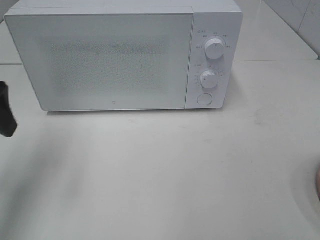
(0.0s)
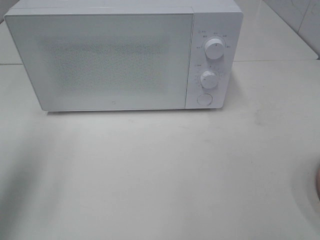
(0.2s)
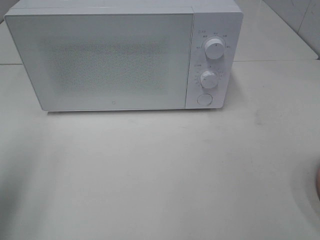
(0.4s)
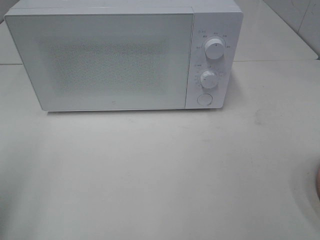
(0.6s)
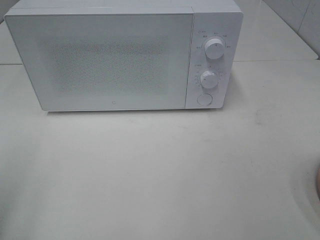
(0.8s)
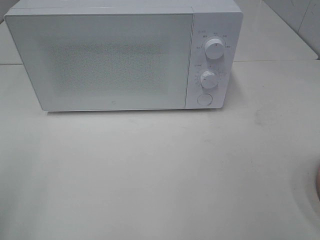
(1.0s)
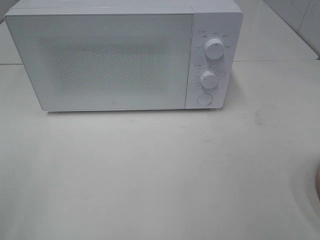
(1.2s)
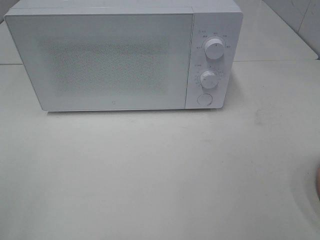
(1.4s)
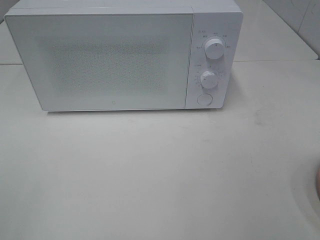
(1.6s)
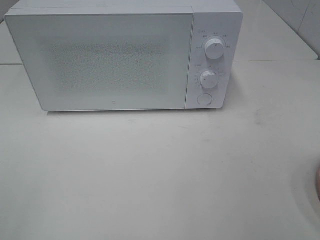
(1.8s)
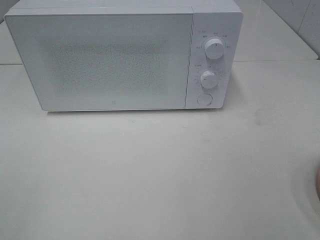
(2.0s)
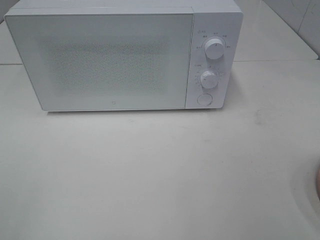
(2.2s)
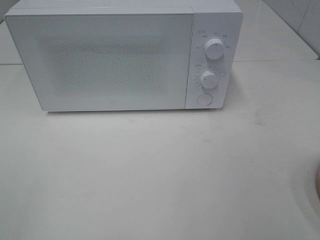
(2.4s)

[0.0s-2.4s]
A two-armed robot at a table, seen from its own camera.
Task of the whole recording: Heat the burger.
0.0s to 1.2s: The left gripper is displaced backward by some 20 cm.

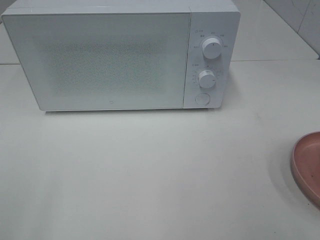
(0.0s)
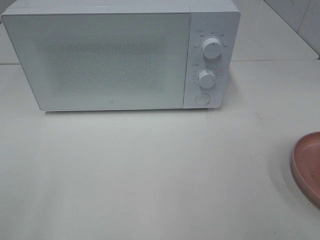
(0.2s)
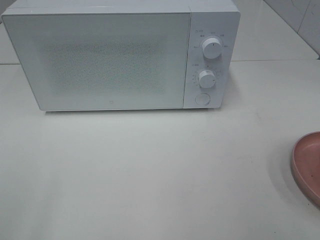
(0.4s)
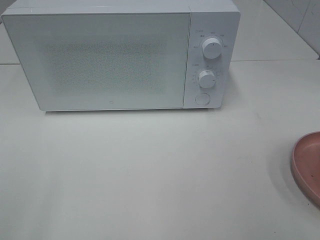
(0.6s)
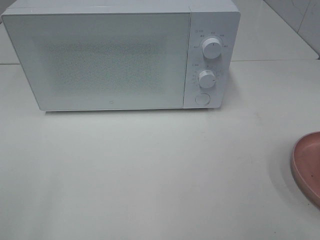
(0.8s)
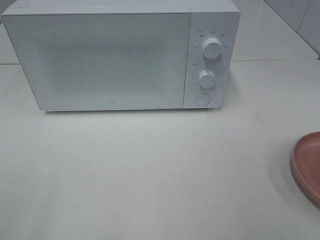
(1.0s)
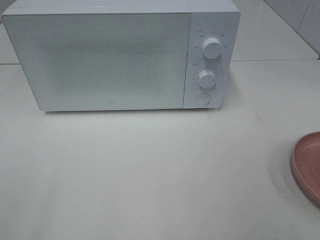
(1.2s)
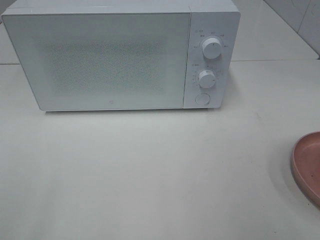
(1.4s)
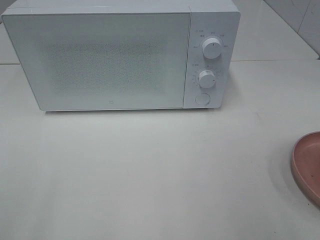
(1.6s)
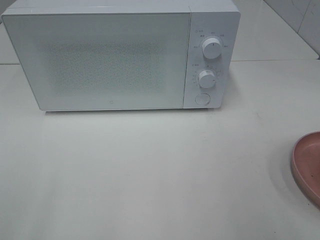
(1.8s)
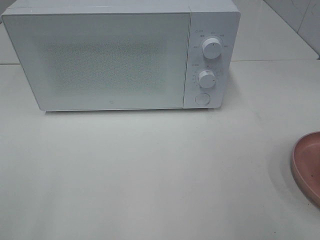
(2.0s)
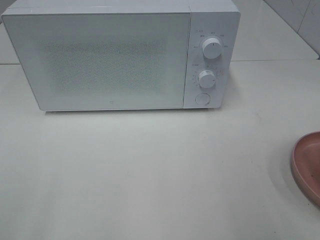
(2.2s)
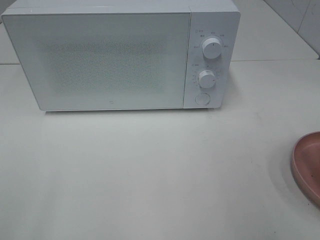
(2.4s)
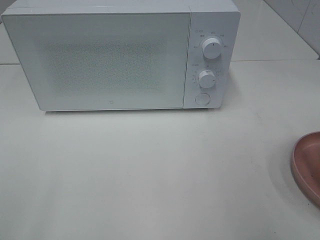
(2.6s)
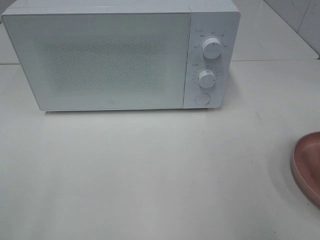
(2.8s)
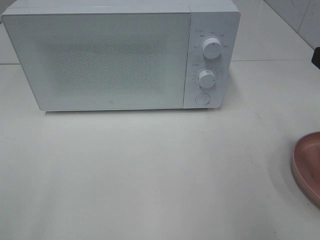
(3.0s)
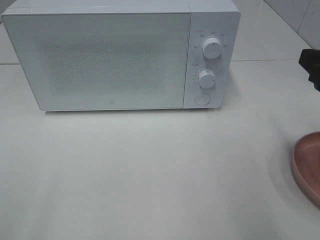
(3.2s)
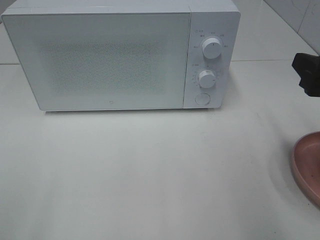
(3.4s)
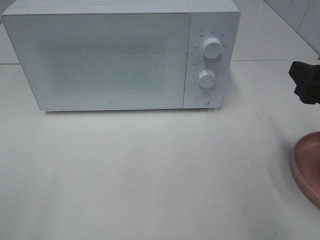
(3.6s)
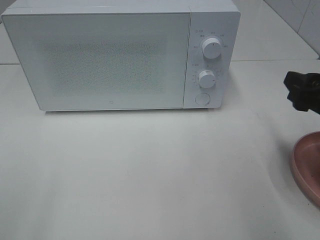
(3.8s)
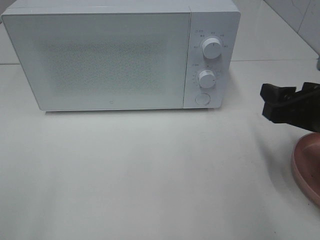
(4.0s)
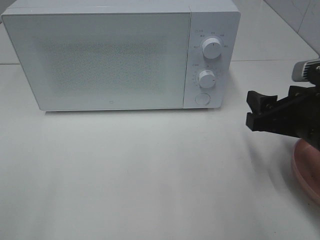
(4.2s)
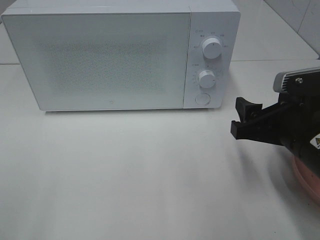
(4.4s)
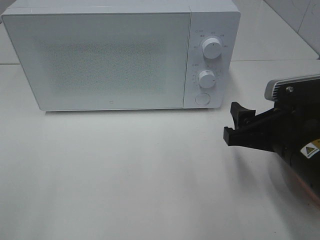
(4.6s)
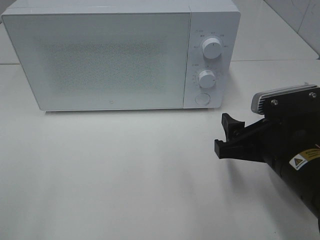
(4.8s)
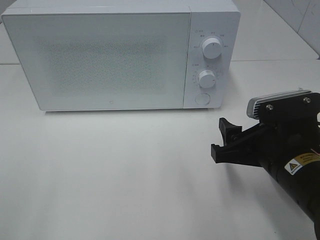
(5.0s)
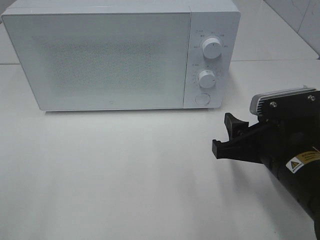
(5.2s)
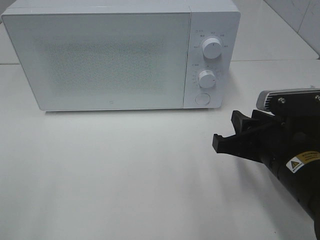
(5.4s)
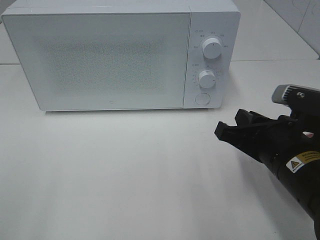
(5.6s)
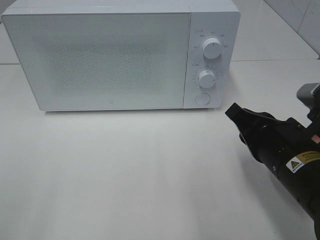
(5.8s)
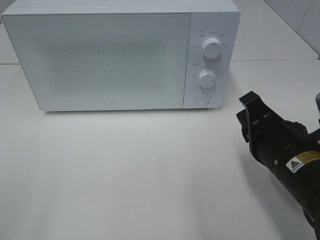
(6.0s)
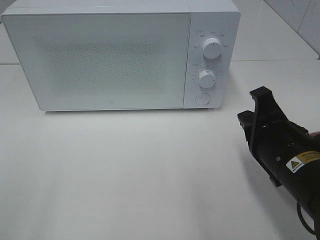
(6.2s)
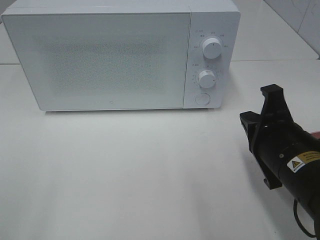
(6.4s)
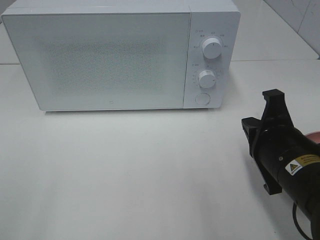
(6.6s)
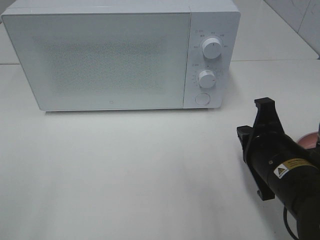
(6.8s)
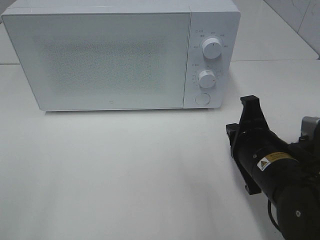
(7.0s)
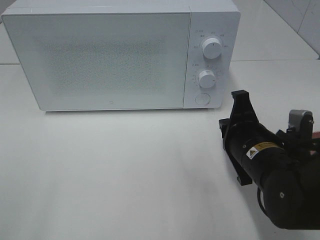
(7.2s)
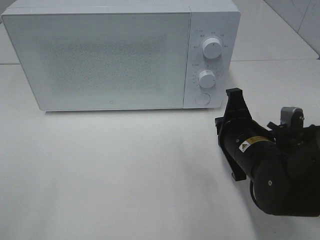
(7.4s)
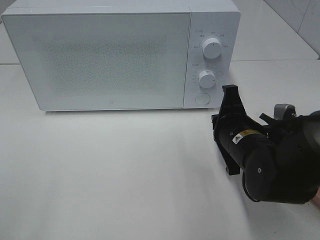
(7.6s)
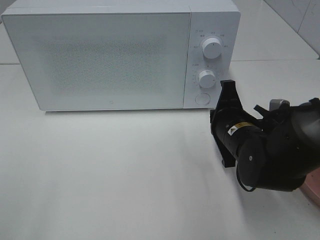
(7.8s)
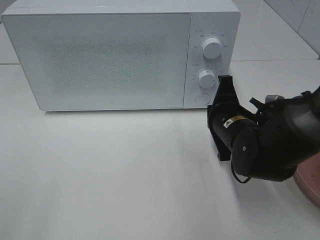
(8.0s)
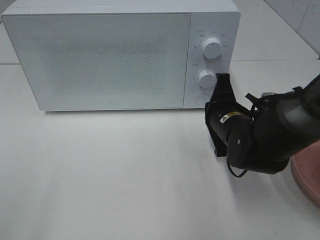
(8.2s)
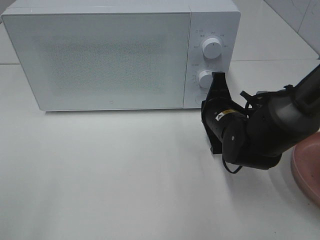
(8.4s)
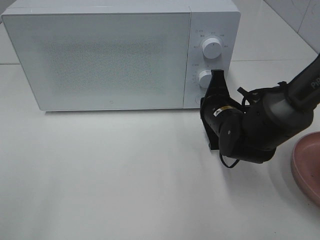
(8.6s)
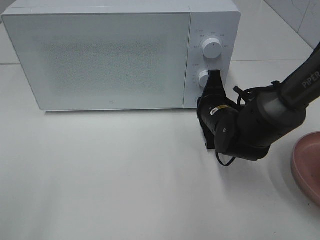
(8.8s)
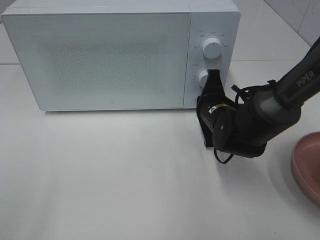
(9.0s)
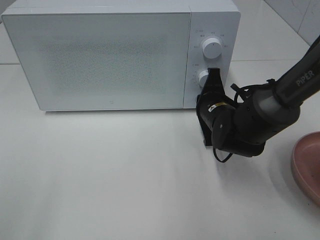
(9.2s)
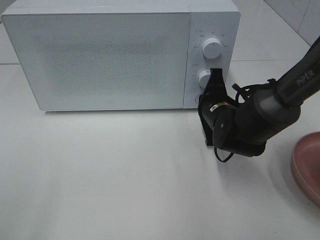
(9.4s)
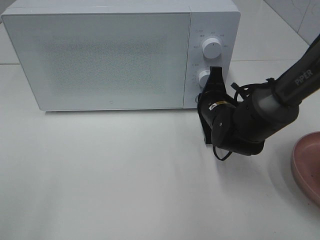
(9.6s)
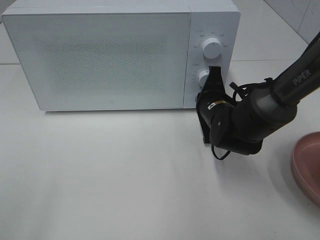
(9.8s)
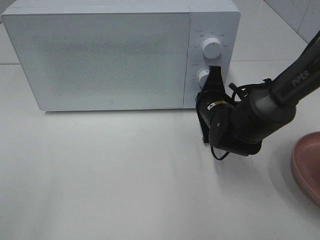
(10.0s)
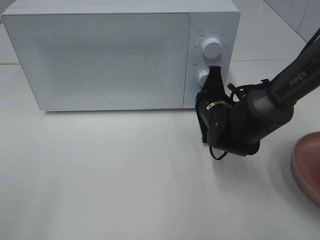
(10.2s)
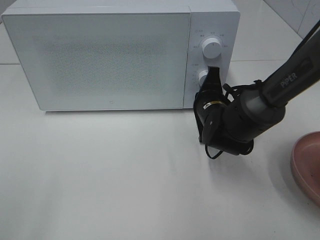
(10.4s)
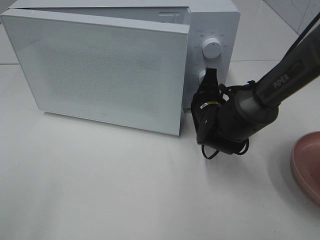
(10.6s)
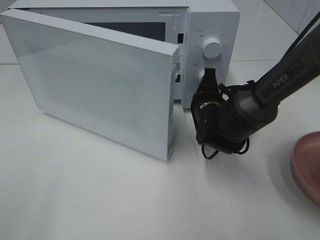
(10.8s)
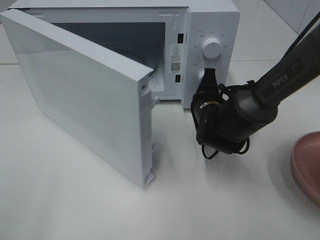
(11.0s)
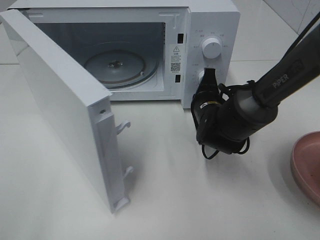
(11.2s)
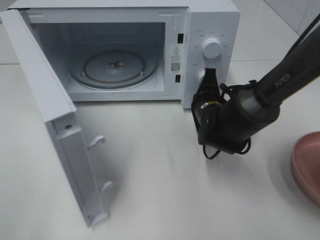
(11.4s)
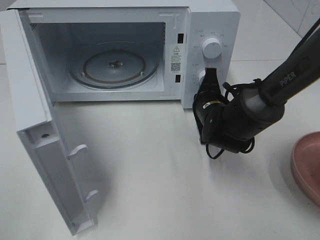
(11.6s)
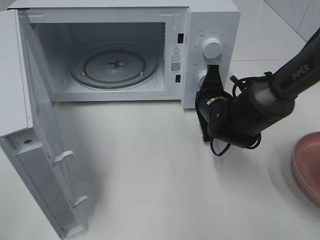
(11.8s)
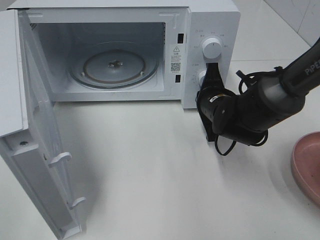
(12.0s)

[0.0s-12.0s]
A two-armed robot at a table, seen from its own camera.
Task of the whole recording: Heat the burger.
3.0s to 4.4s: The right gripper shifts about 15 cm downward and to the left.
4.4s to 6.0s: The right gripper closes its fingers.
6.0s to 7.6s: The right gripper moves forward, approximately 10 cm.
7.6s to 9.0s: The right gripper travels forward by roughly 10 cm.
9.0s to 10.4s: The grippers stay close to where they were, moving slightly.

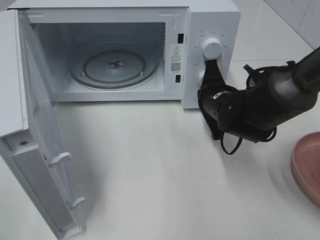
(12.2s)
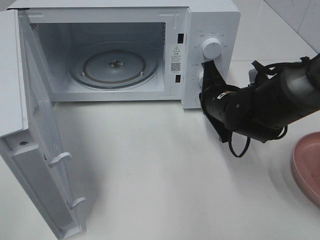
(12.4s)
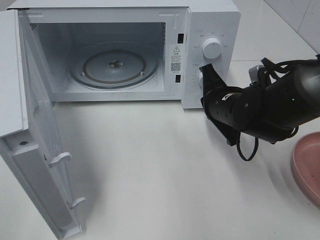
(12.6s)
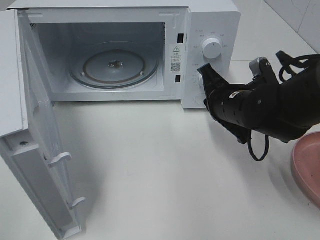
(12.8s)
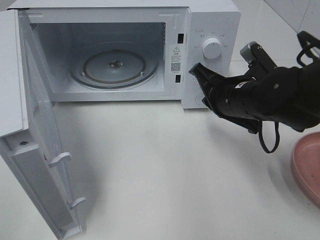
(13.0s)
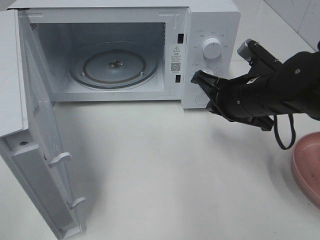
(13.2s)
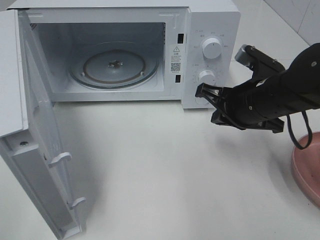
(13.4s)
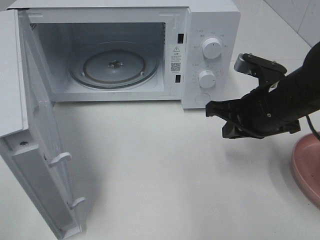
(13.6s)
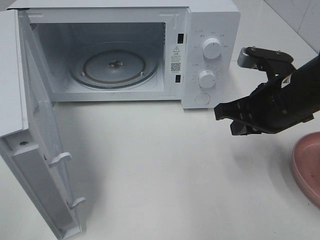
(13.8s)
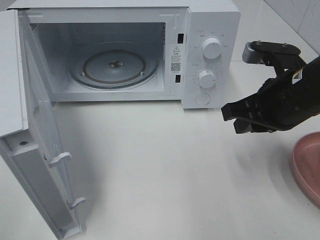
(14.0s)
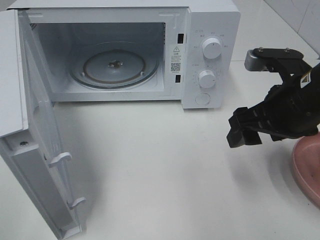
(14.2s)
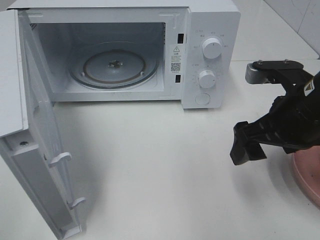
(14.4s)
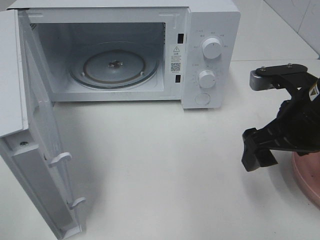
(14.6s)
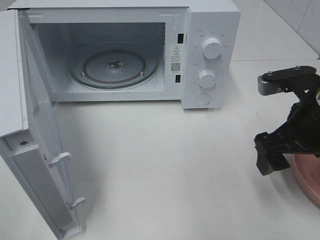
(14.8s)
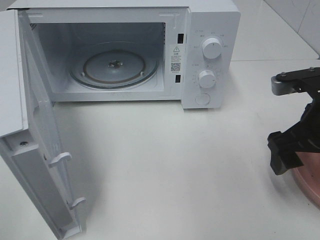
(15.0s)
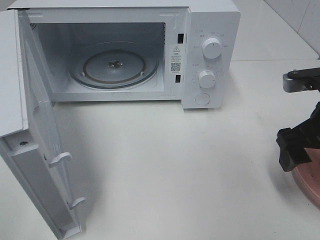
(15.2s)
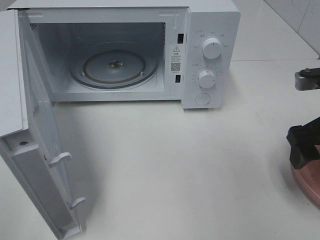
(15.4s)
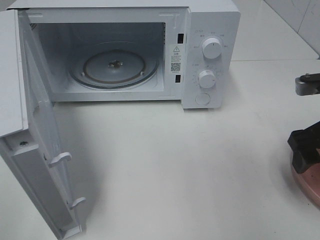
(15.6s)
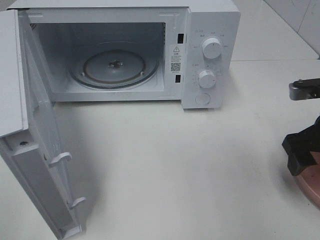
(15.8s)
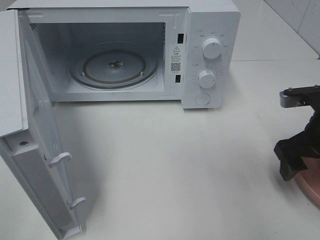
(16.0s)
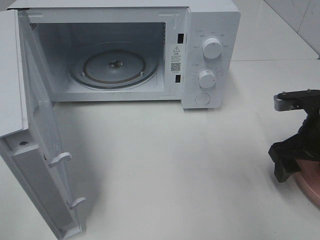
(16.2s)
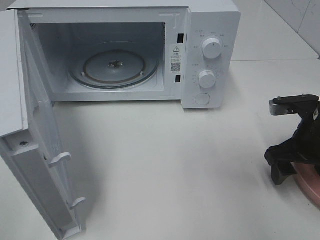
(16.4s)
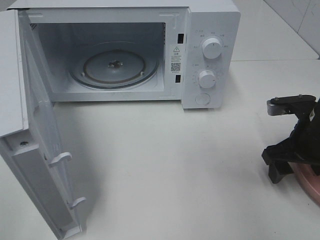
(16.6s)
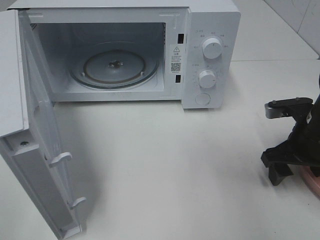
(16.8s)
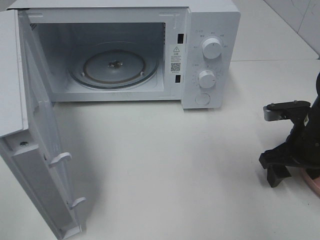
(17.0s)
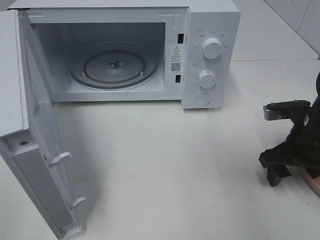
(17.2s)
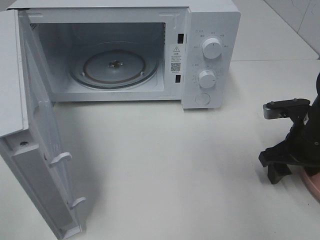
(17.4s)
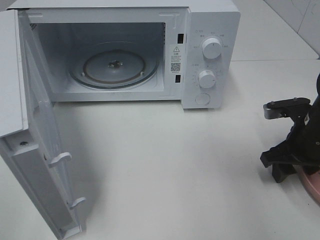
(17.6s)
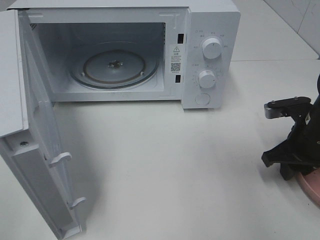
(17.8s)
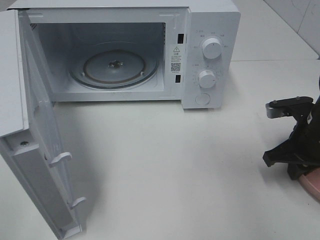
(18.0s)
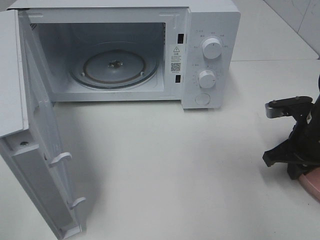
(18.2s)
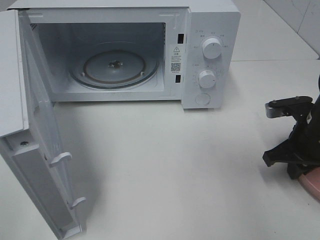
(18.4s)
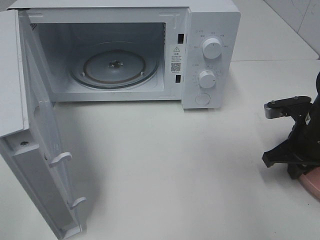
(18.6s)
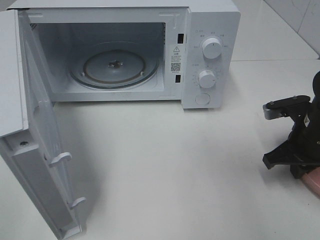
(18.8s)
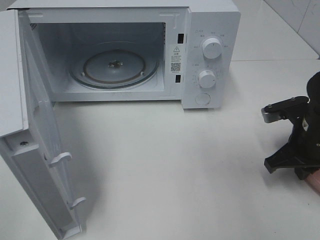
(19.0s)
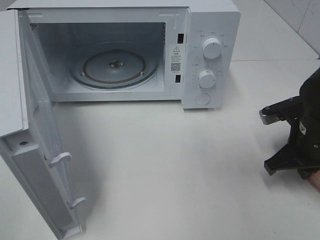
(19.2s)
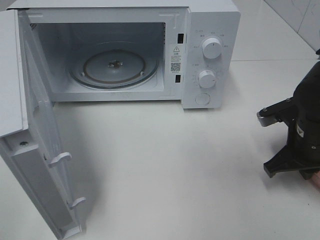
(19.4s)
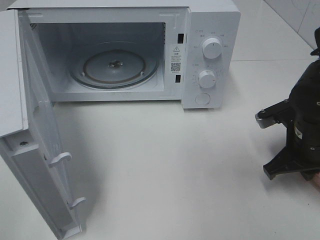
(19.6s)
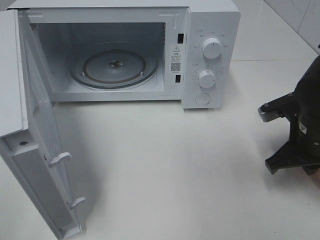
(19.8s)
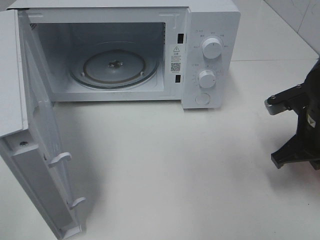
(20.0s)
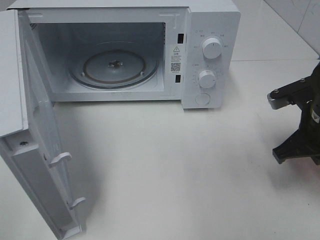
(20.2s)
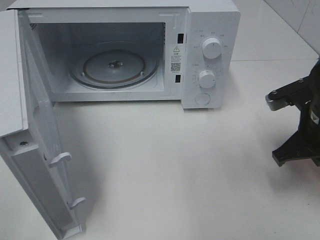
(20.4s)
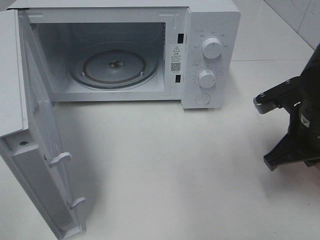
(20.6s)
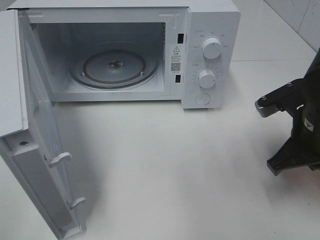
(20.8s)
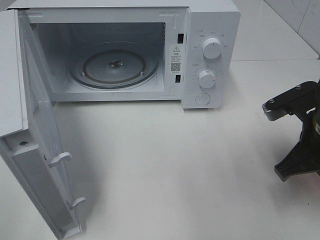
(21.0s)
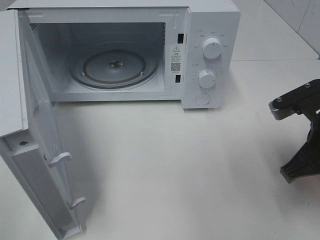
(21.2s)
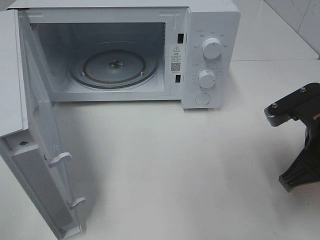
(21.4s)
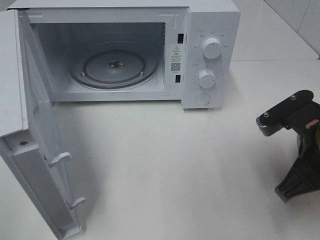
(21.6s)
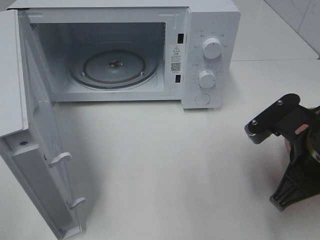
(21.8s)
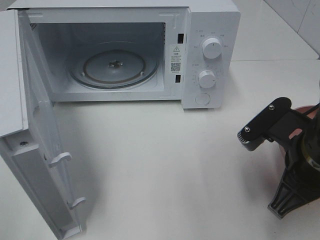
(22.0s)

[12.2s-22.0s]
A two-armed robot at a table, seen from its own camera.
Task of the whole recording: Heat the burger.
Step, 12.6s to 18.8s: Right hand: grab the plate with the hamburger.
12.2s to 13.6s: The right gripper heads backward, upward and to the right, covering about 10 cm.
13.6s to 15.0s: The right gripper travels to the right by approximately 5 cm, and opens up.
15.0s to 16.4s: The right gripper heads downward, covering roughly 5 cm.
16.4s to 17.8s: The right gripper closes up.
17.8s to 19.2s: The right gripper closes up.
19.2s to 20.6s: The right gripper shifts by about 5 cm.
20.6s to 22.0s: The right gripper heads backward, covering approximately 5 cm.
